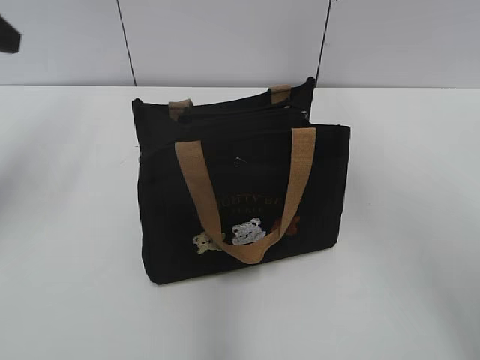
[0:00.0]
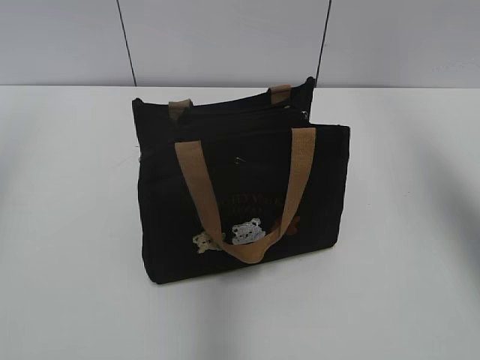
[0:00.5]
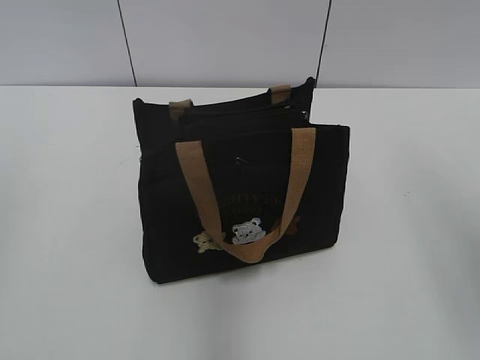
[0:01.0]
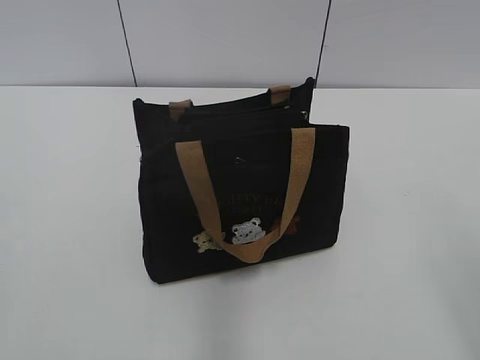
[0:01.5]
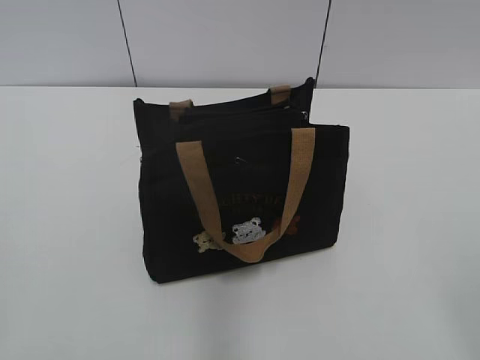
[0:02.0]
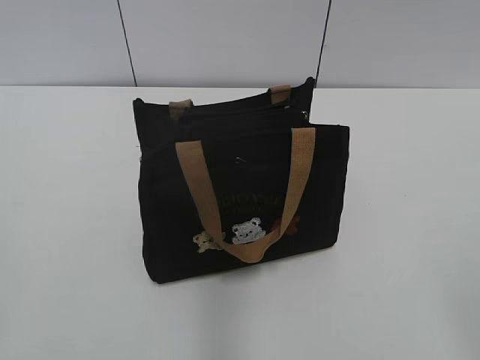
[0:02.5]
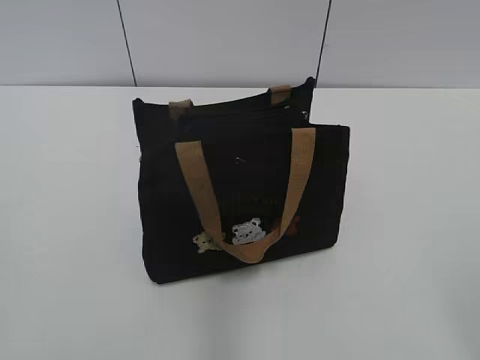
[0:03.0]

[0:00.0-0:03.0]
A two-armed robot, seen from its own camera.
0:00.0 to 0:01.5: The left gripper goes some 30 cm backward.

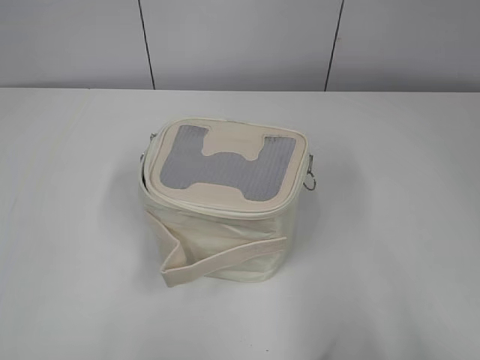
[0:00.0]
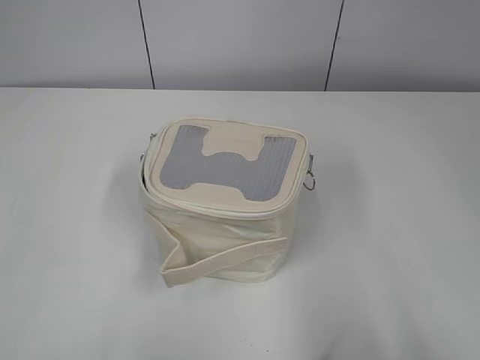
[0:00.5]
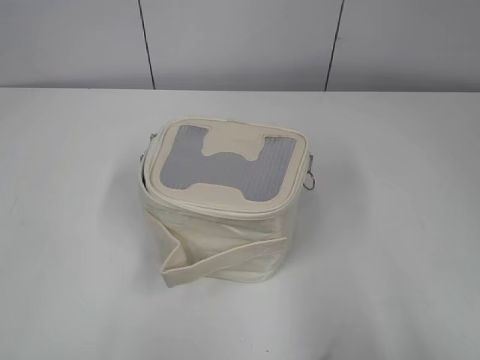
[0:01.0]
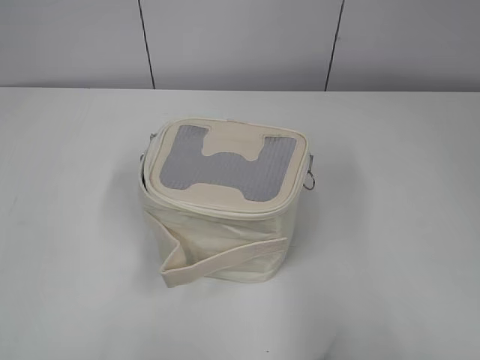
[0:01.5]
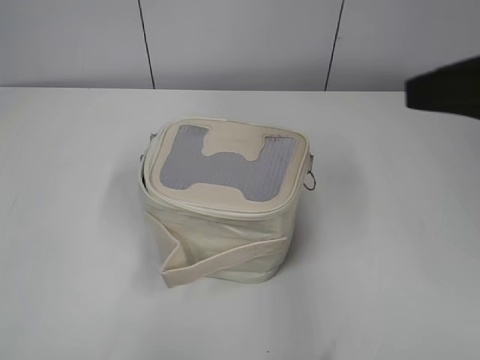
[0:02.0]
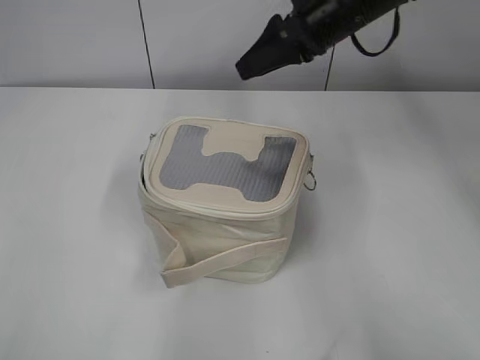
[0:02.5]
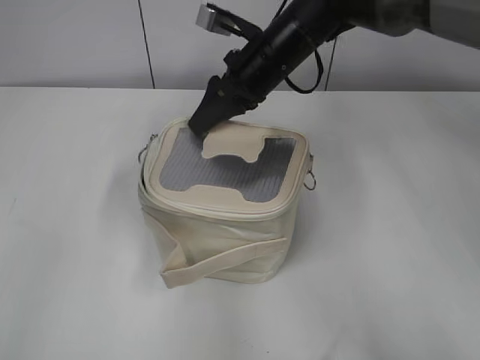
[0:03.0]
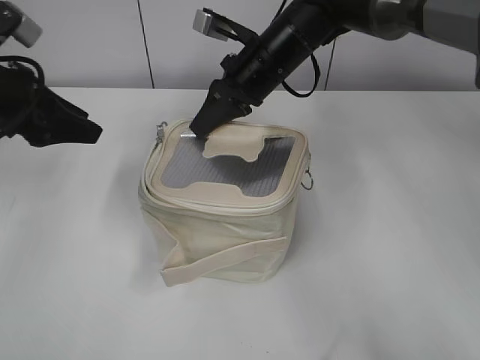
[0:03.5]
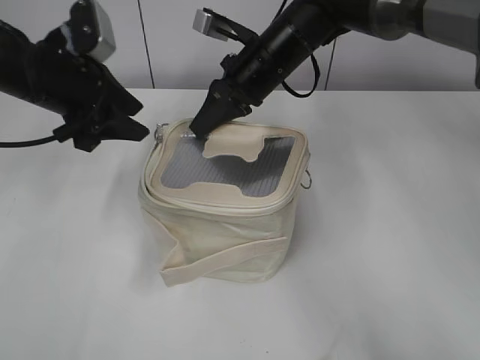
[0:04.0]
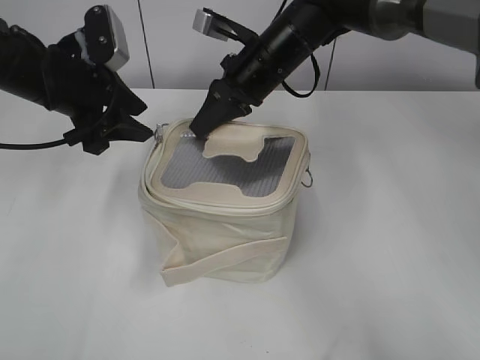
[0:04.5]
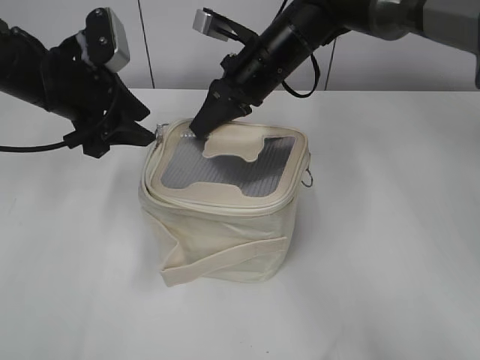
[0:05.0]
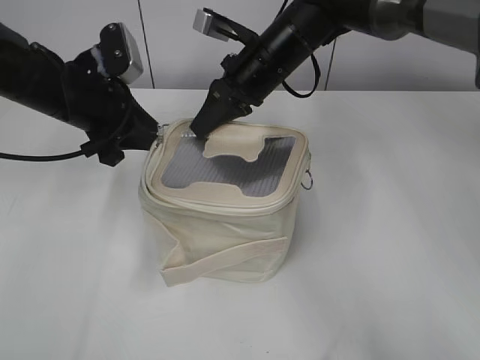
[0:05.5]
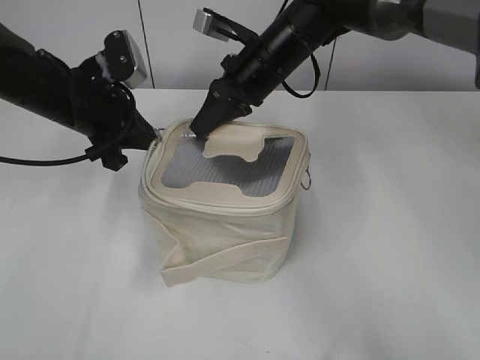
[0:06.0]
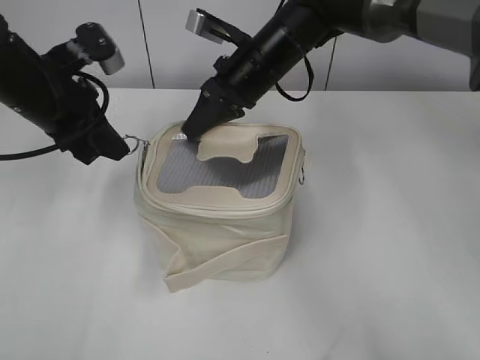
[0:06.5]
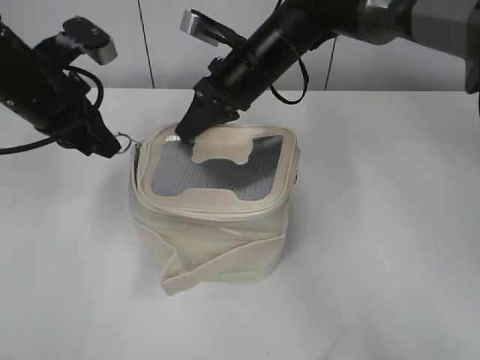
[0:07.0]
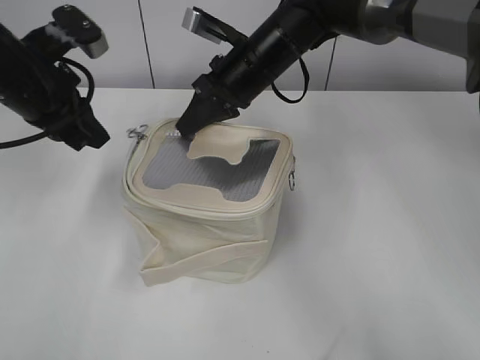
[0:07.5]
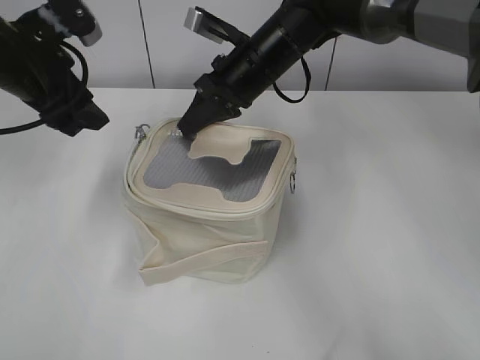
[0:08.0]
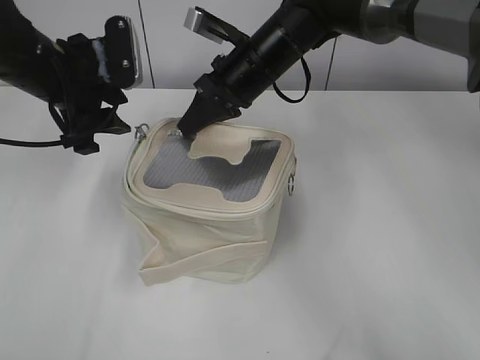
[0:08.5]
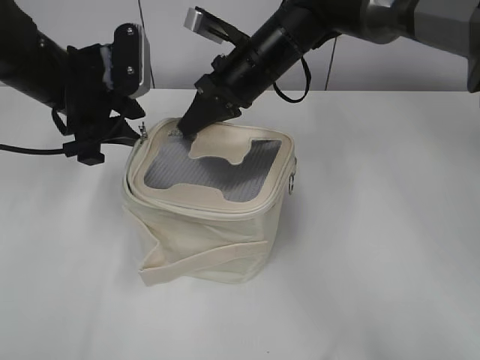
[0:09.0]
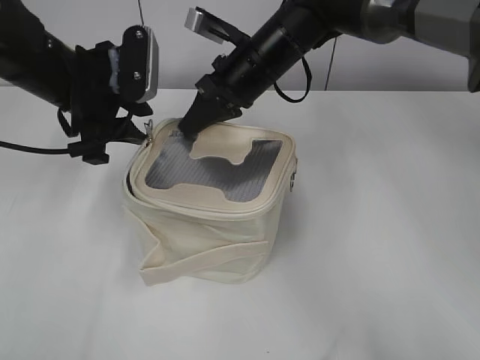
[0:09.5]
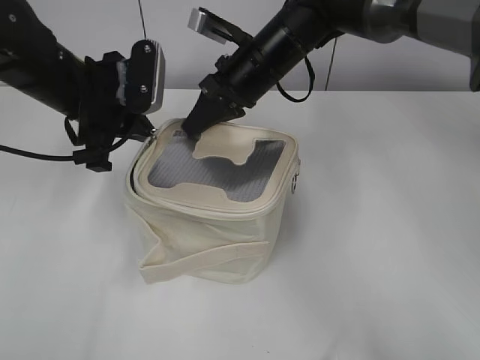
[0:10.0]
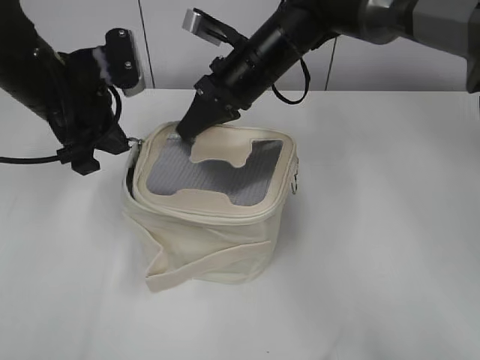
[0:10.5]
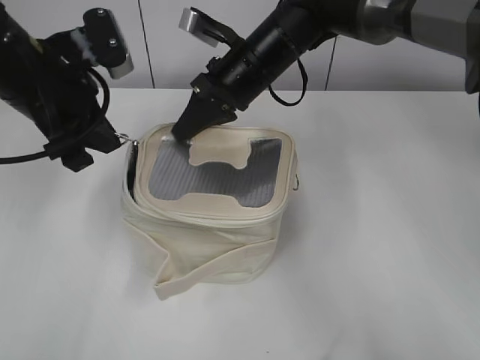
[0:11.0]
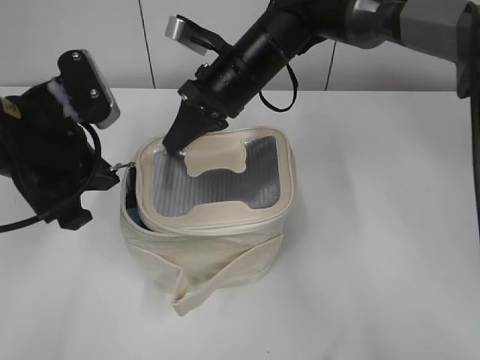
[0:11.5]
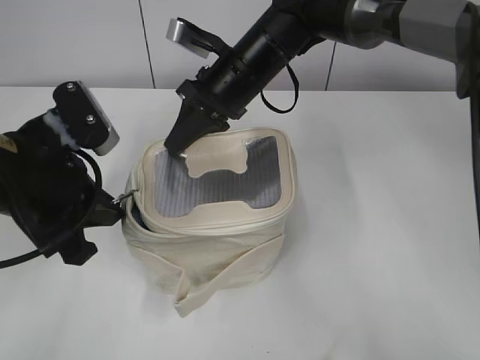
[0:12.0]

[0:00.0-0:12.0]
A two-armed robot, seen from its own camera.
0:02.0 to 0:04.0: The left gripper goes approximately 35 cm forward, and opens. Meanwhile the right gripper heads forward, to the left and downward, covering approximately 35 cm, and closes.
0:04.0 to 0:06.0: The left gripper closes.
0:06.0 to 0:08.0: The left gripper shifts about 5 cm upward, and opens up.
0:08.0 to 0:10.0: The left gripper goes about 5 cm to the right, and closes its fingers.
0:10.0 to 0:12.0: The left gripper is displaced backward by roughly 15 cm.

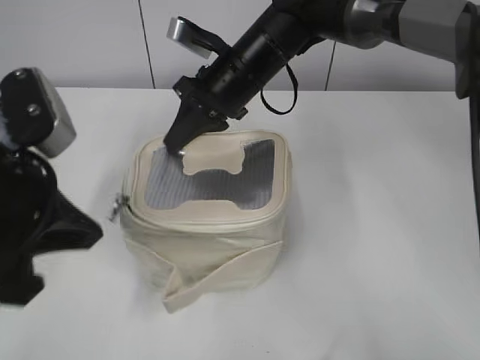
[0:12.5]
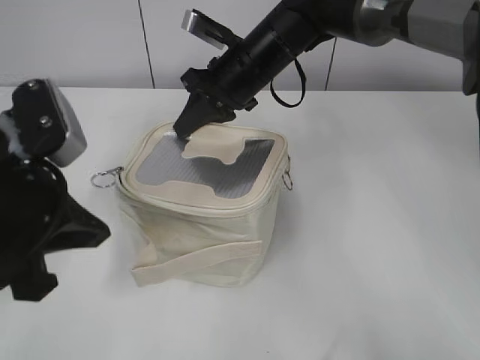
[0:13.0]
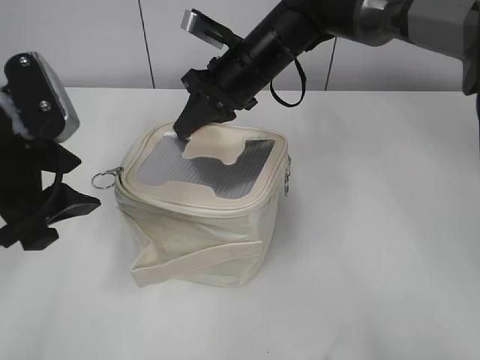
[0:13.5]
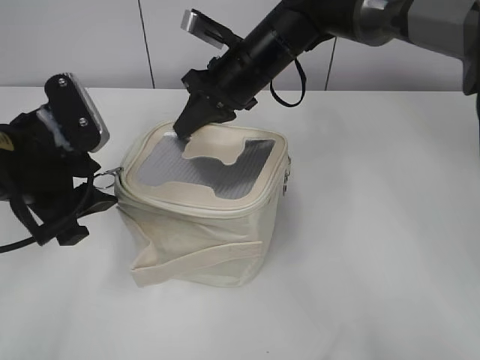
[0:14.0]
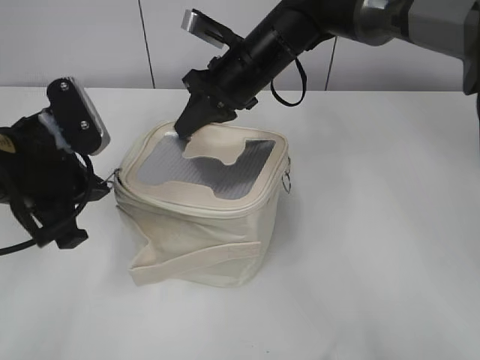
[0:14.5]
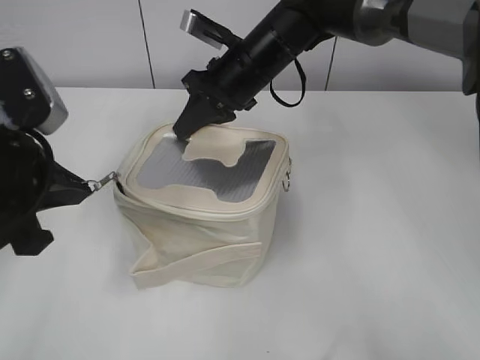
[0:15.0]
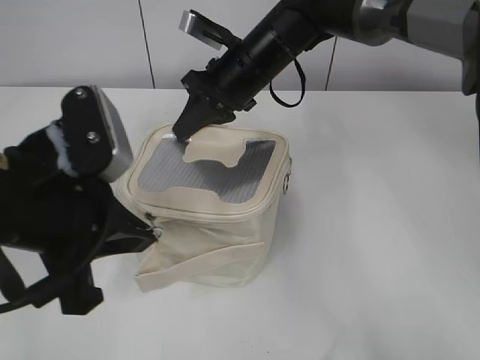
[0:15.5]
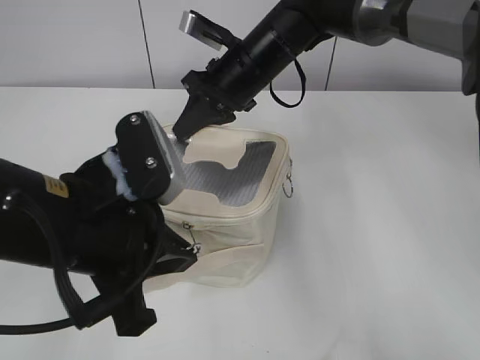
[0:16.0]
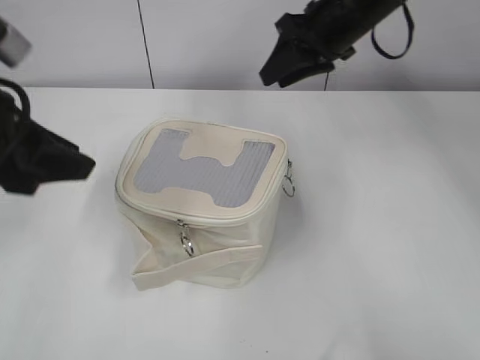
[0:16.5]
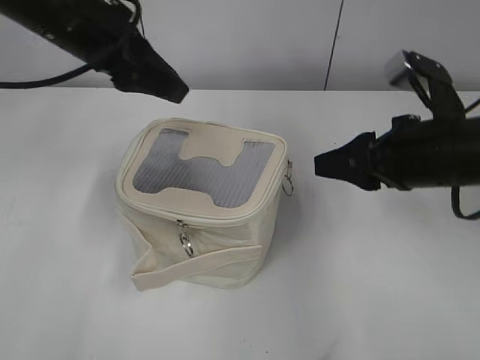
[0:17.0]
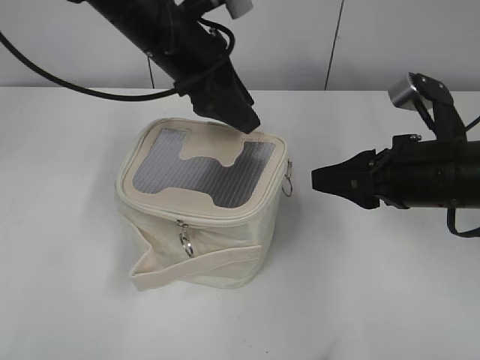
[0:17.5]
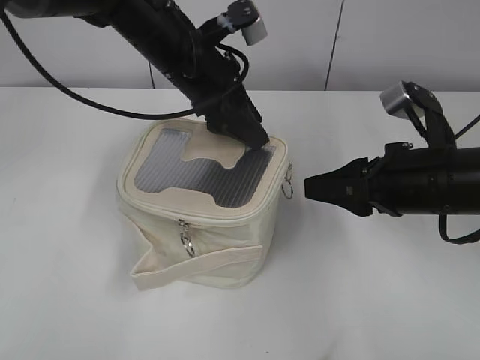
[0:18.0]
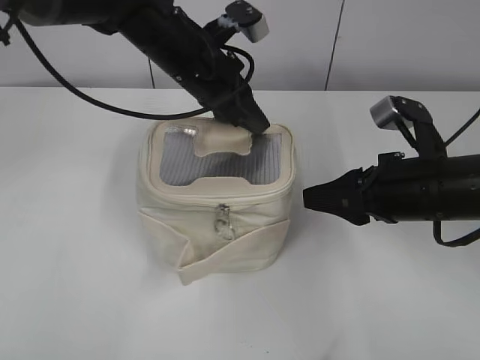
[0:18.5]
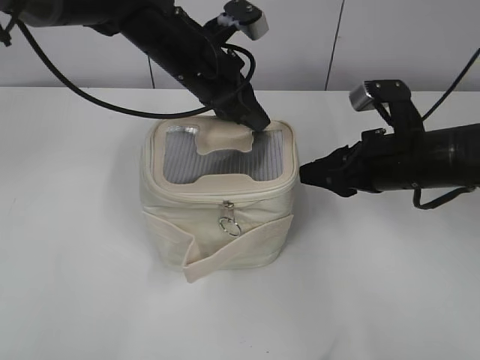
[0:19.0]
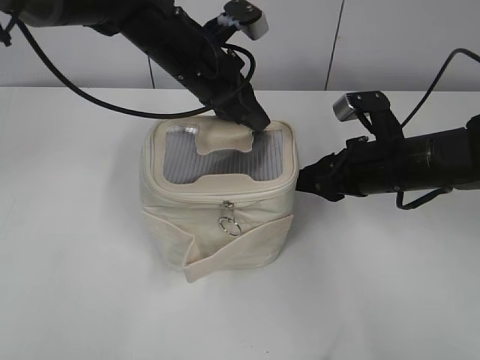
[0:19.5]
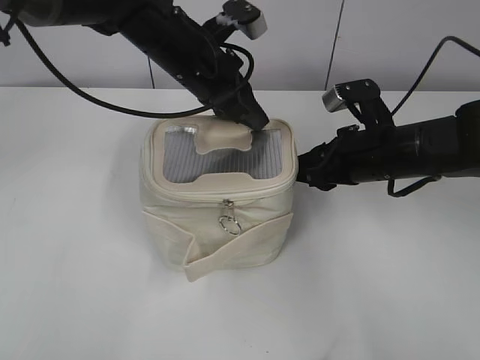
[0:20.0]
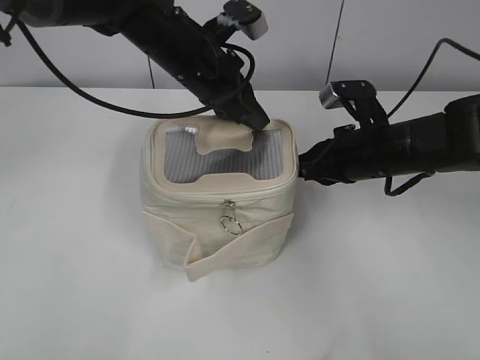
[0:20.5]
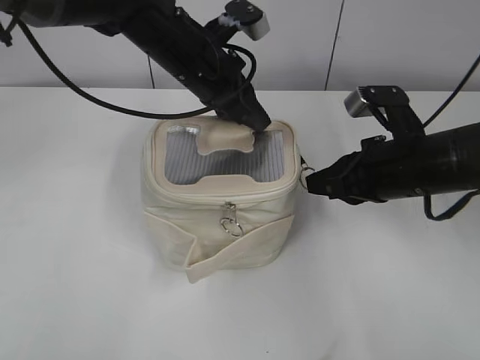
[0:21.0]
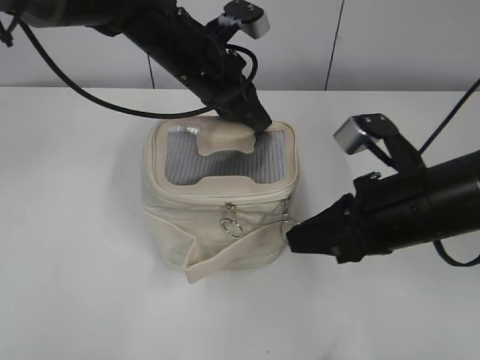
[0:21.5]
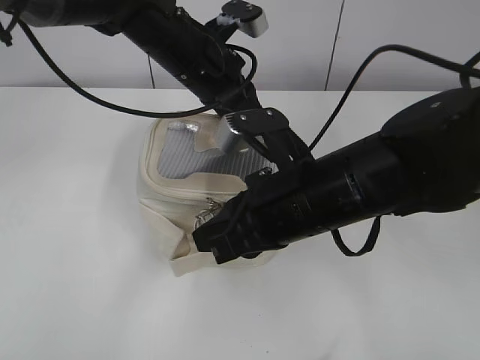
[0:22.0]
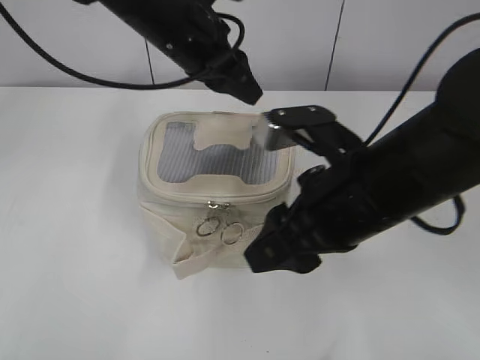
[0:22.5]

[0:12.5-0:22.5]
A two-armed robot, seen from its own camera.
Step, 0:12.5 to 0:16.0: Zip up the bag with your left hand.
Step, 0:16.5 to 0:22.0: Zip up the bag with your right hand.
0:12.5 to 0:14.5: The left gripper is displaced forward by some 5 cm, and opens, then closes again.
0:14.5 to 0:16.5: The right gripper shifts some 10 cm to the right and upward, and opens its fingers. The left gripper shifts about 5 cm upward, goes to the right and returns, about 10 cm each way, and opens.
0:16.5 to 0:18.5: The right gripper is displaced backward and downward by approximately 20 cm; the left gripper travels forward and to the right by approximately 25 cm, and closes.
0:18.5 to 0:20.5: The right gripper travels forward by about 10 cm, and closes.
0:20.5 to 0:22.5: The right gripper moves backward, upward and to the left, about 15 cm, and opens up, while the left gripper opens up.
